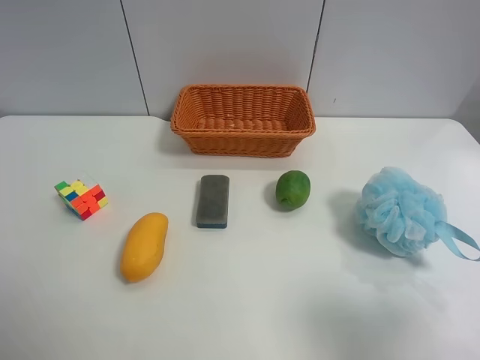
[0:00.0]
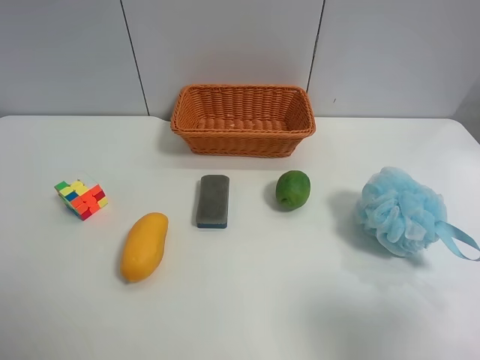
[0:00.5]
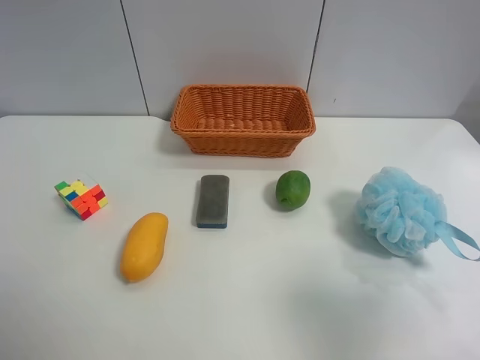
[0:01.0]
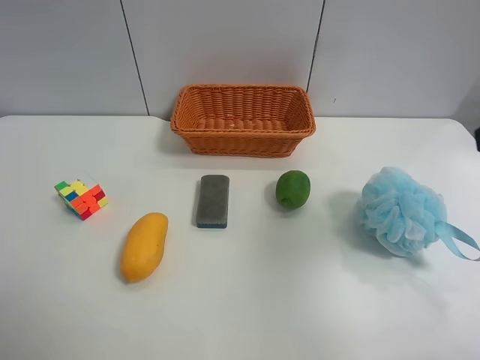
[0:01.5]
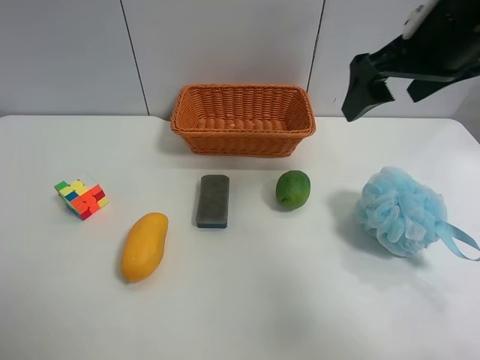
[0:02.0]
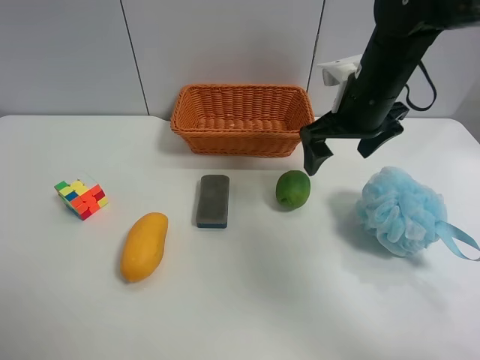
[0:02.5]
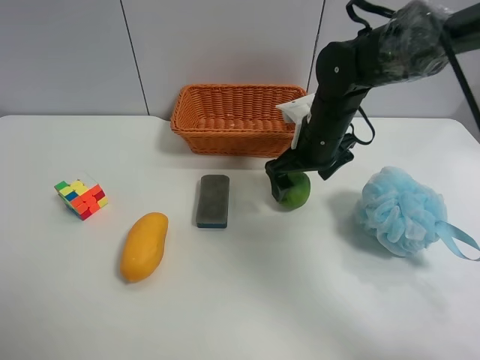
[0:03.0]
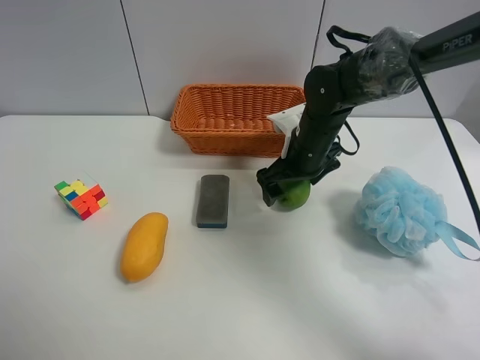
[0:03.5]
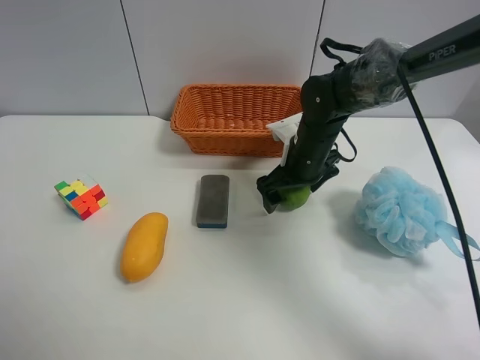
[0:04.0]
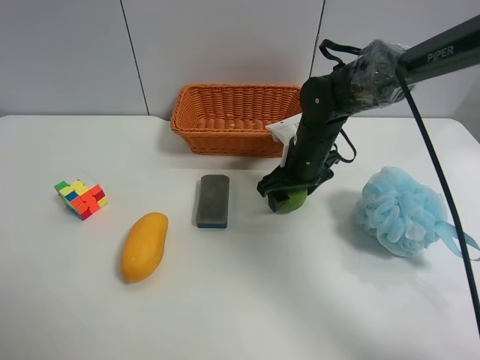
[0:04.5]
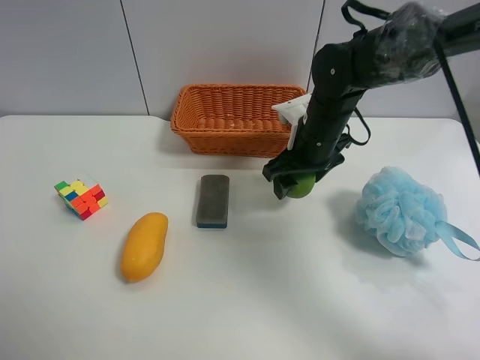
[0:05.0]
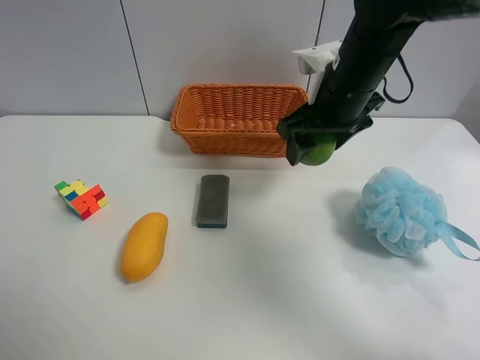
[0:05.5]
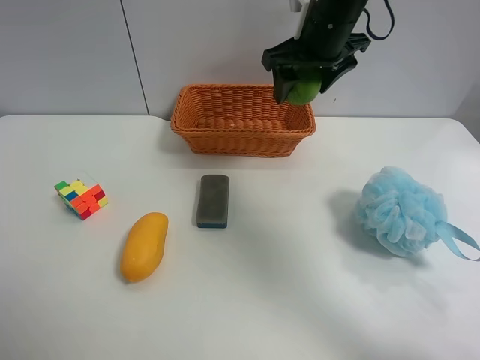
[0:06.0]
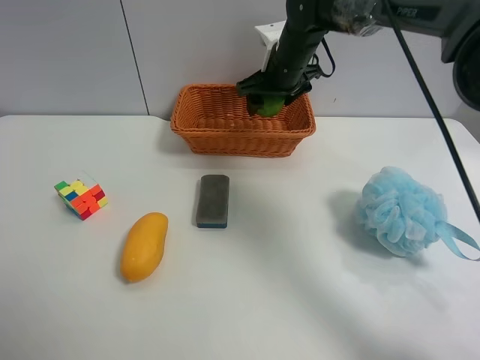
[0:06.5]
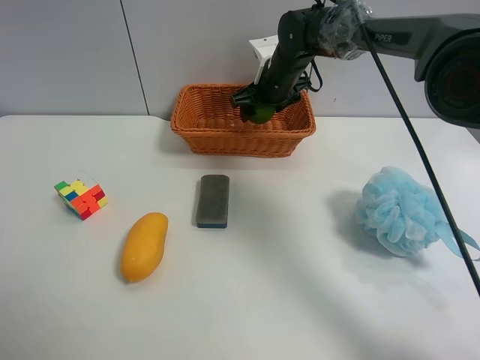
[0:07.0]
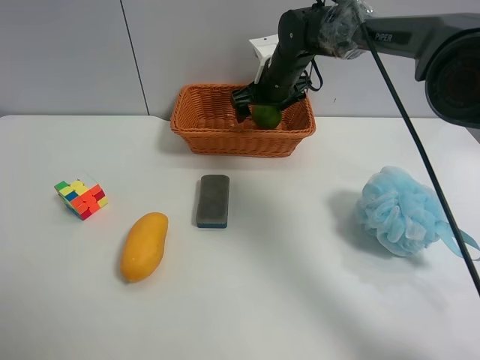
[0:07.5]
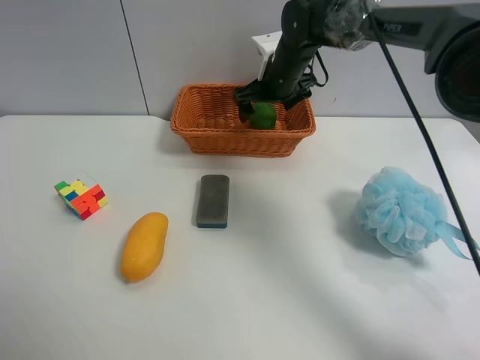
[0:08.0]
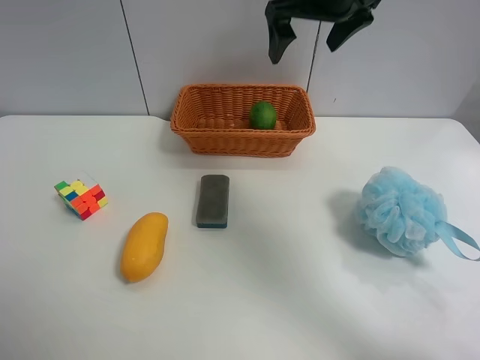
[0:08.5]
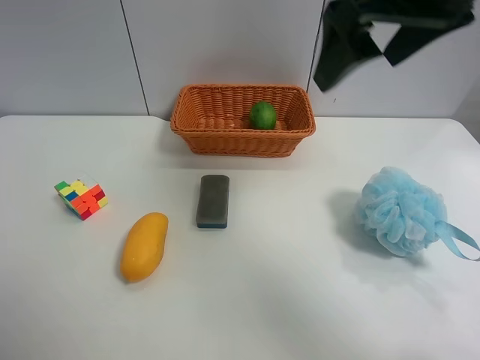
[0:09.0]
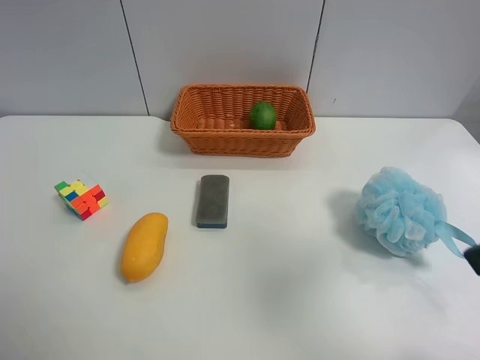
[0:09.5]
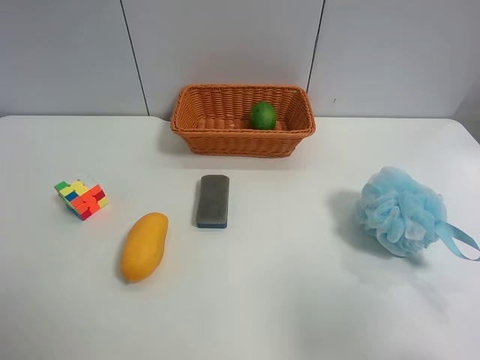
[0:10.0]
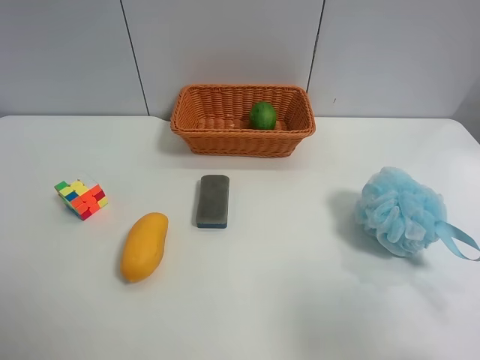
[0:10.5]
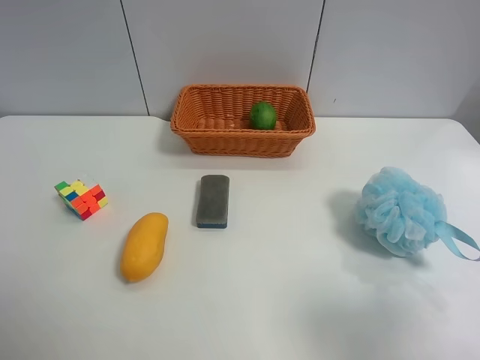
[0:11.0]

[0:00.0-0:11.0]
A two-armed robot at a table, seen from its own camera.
Task of the whole recording: Randomly grab green lemon or mangoes from the table and put them in a basket.
Step, 0:00.0 to 0:04.0: Grasp the Lemon with the right gripper.
Step, 0:04.5 to 0:08.0: Place the Lemon into the basket with the right gripper.
0:00.0 to 0:02.0: The right gripper shifts roughly 30 cm forward.
0:02.0 to 0:03.5: The right gripper moves downward and forward, about 20 cm.
0:03.5 to 0:05.5: The right gripper is displaced upward by roughly 15 cm, and closes its fingers.
0:05.5 to 0:07.5: The right gripper goes some 20 cm forward and downward, and opens up.
0:07.5 to 0:09.0: The right gripper shifts approximately 35 cm backward and upward.
0:09.0 to 0:11.0: The right gripper heads backward, to the right and downward, covering approximately 30 cm.

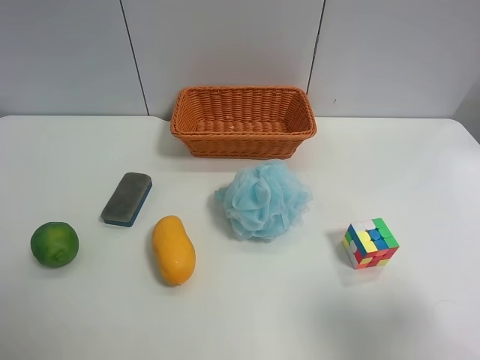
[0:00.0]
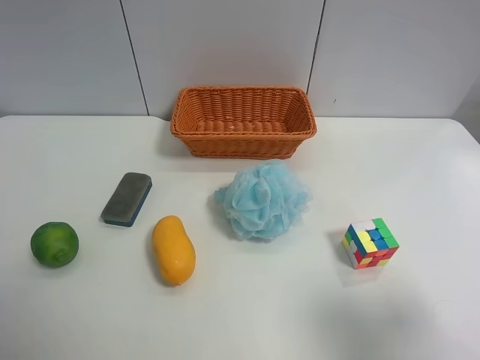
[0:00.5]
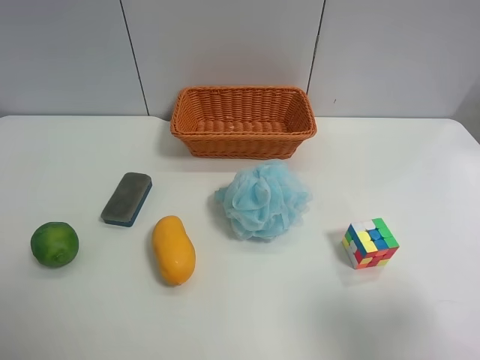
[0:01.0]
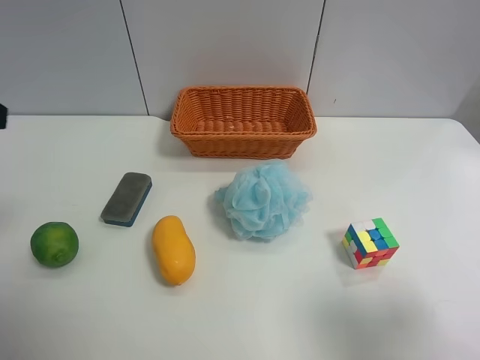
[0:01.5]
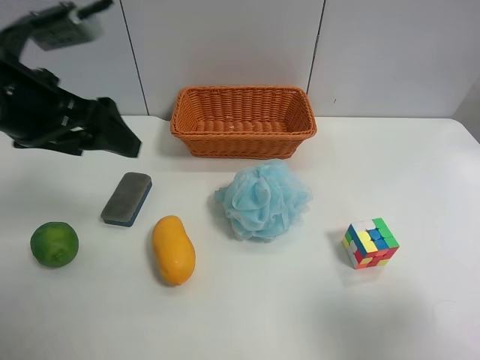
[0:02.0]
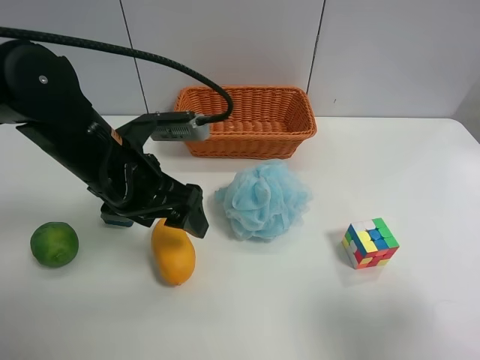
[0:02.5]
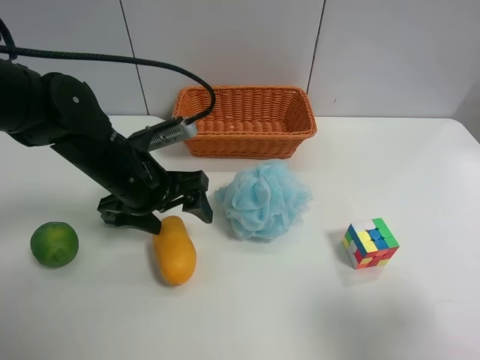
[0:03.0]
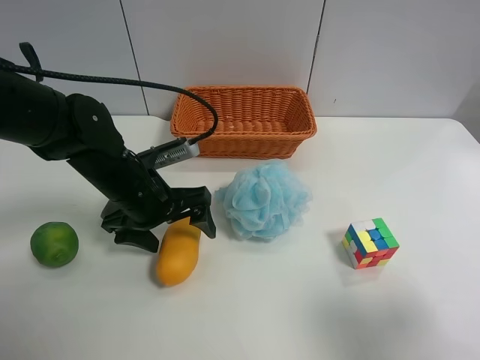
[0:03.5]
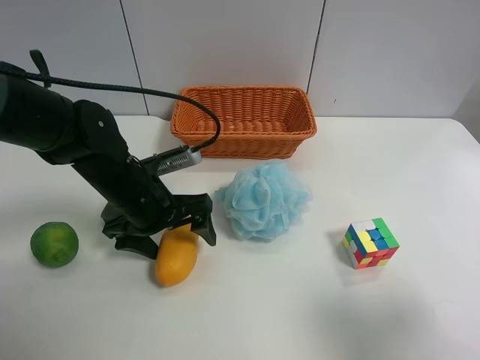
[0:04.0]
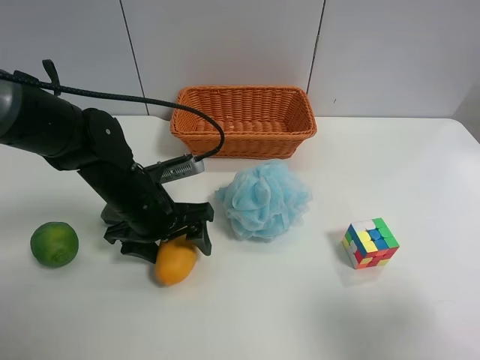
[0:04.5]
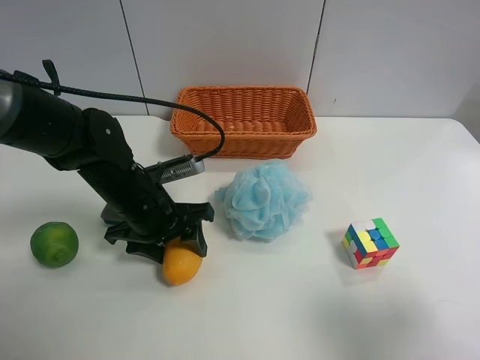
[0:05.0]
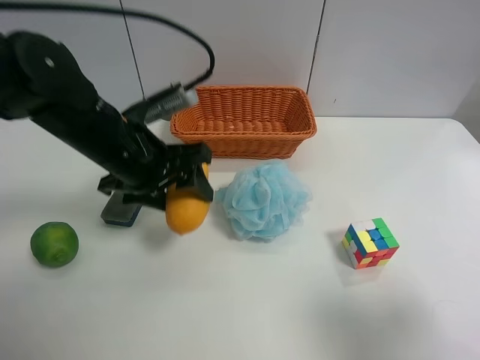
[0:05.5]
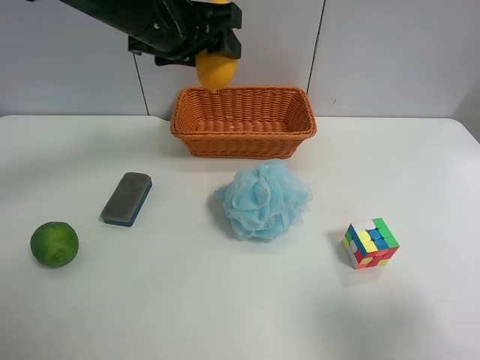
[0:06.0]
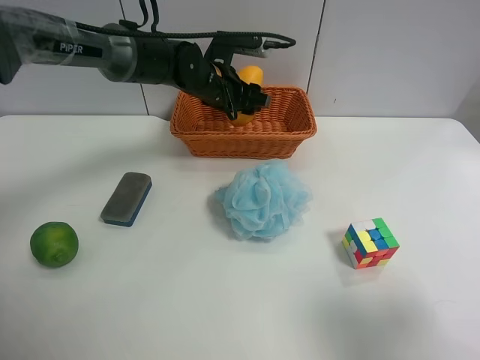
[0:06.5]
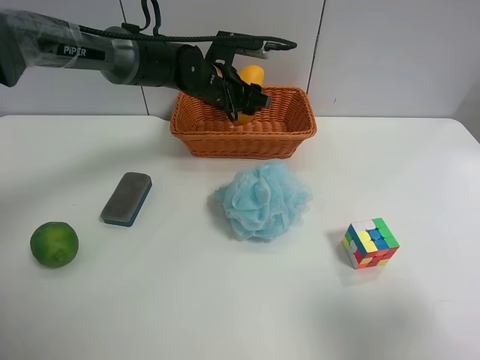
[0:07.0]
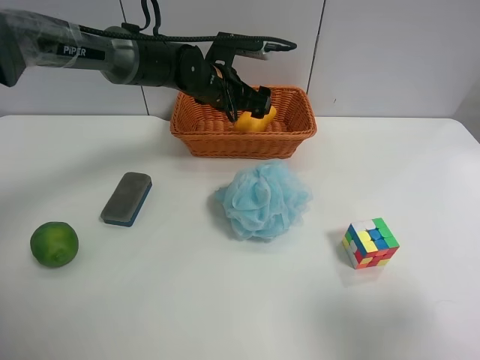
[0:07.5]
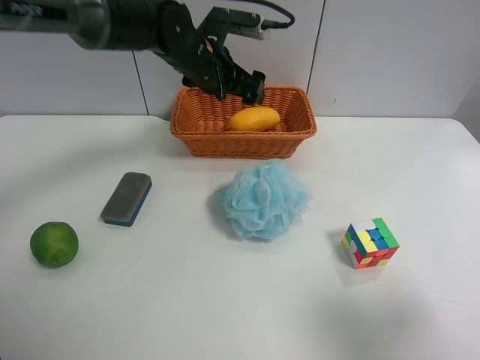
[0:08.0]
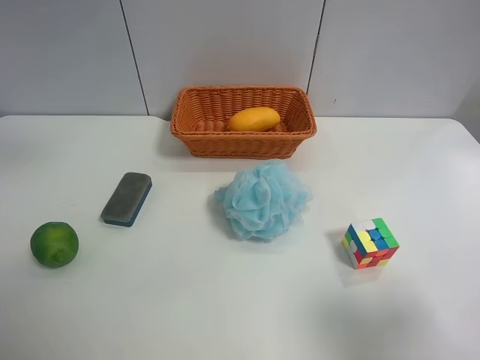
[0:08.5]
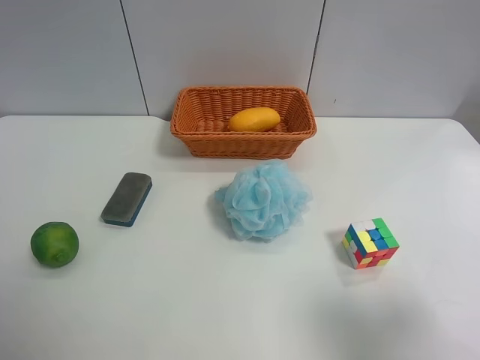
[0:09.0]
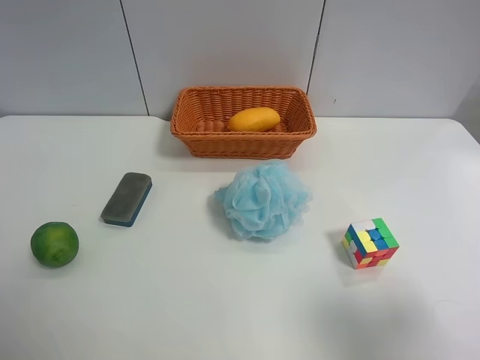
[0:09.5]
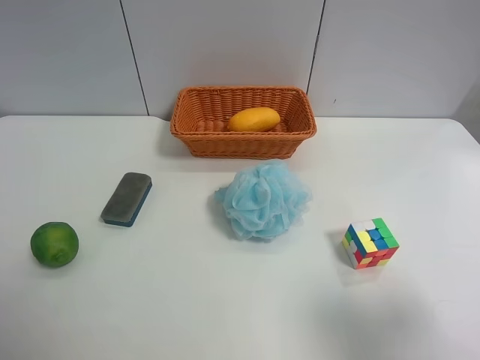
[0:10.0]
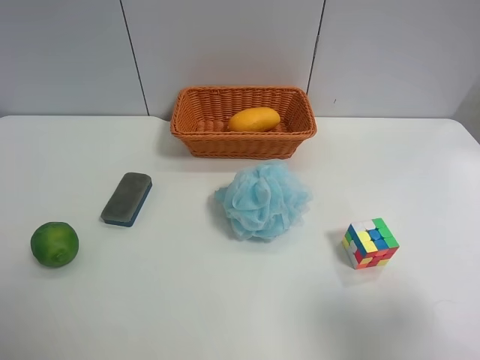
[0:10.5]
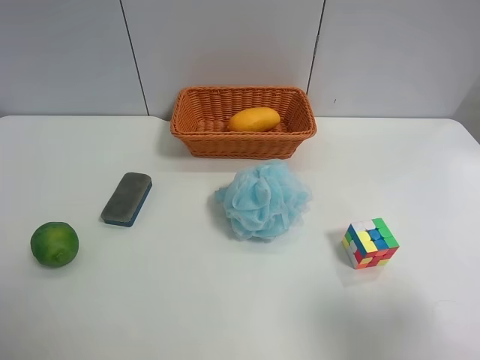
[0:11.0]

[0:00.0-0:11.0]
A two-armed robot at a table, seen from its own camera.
Task of the whole recording: Randomly grab green lemon or mangoes from the table and put them in a basket.
Step, 0:00.0 to 0:04.5: Grasp the mango with the left gripper.
Step, 0:05.0 to 0:08.0: Place the mango into the basket with the left gripper.
0:00.0 to 0:02.0: The left gripper travels forward and to the right by some 25 cm.
0:02.0 to 0:03.5: The left gripper is displaced downward and to the right by some 15 cm.
0:03.5 to 0:05.5: The left gripper heads upward, covering some 10 cm, and closes its fingers.
0:05.5 to 0:07.5: The left gripper travels forward and to the right by some 20 cm, and opens up.
0:07.5 to 0:09.0: The left gripper is displaced backward, to the left and upward by approximately 60 cm.

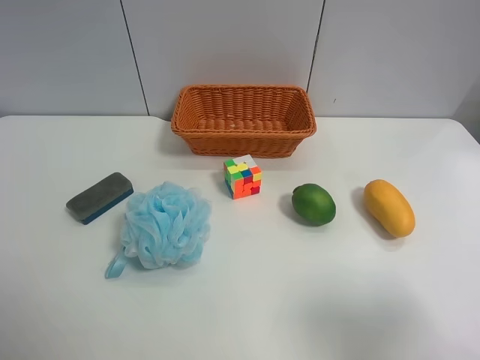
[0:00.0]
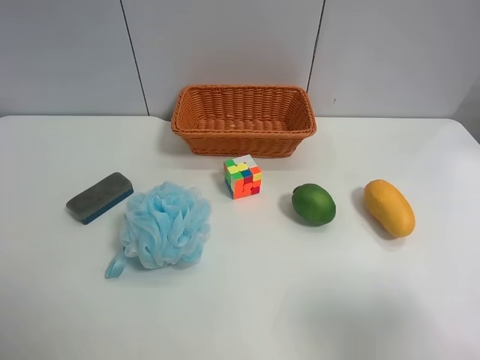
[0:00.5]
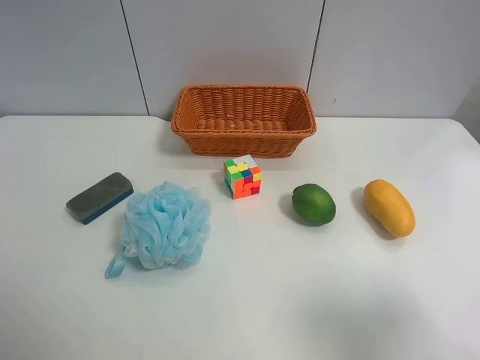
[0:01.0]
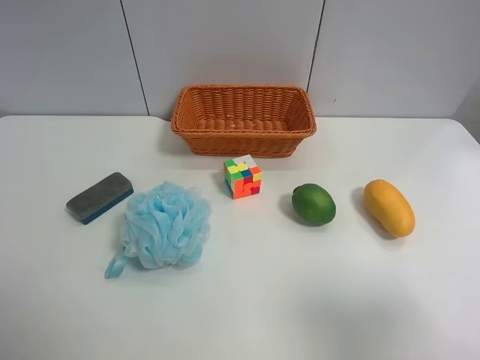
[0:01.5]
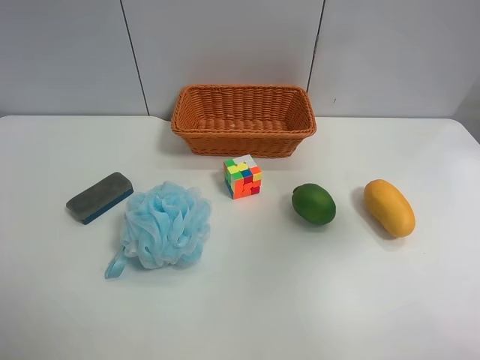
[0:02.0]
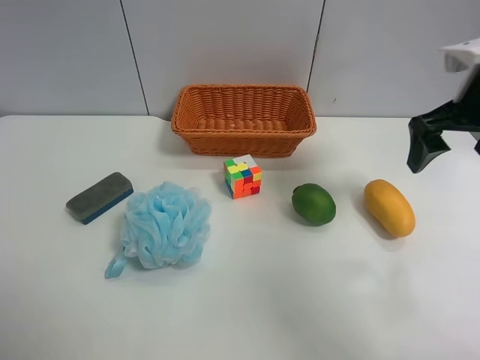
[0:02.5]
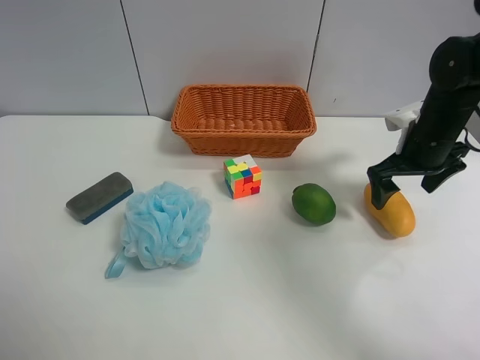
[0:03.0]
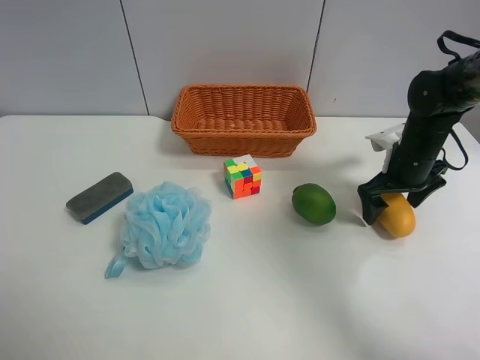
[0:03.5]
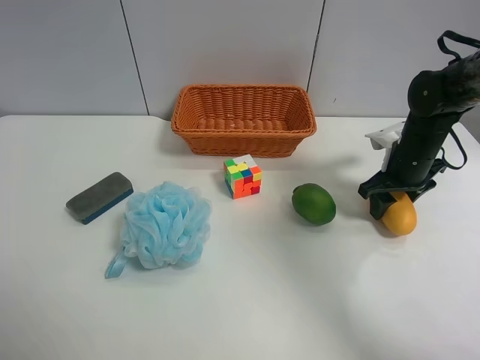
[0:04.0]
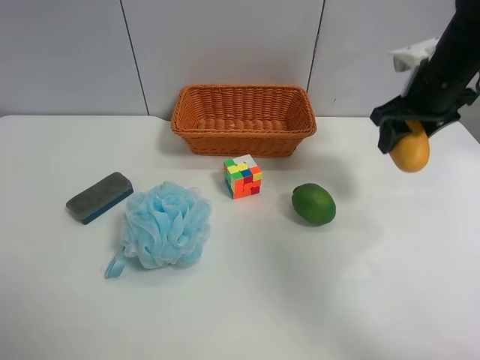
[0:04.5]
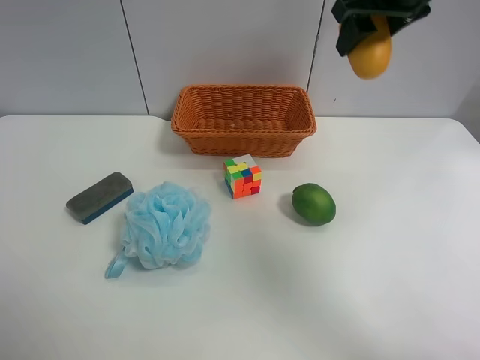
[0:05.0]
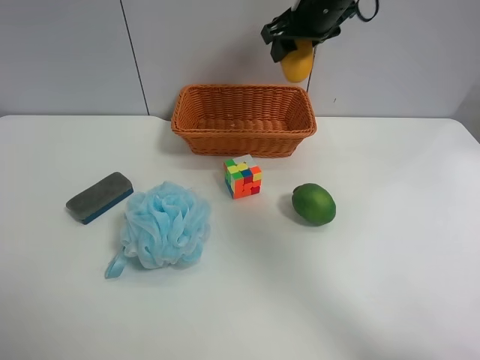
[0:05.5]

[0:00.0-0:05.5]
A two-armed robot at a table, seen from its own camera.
Task of the whole recording: Randomly grab green lemon or mangoes from the table and put them in a basket.
Step, 0:00.0 to 0:03.5: Grasp the mango with the right gripper.
0:00.0 to 0:02.0: The right gripper travels forward and upward by about 20 cm.
0:02.0 to 0:03.5: The right gripper heads downward and forward, covering about 30 cm.
0:03.5 to 0:05.5: The right gripper shifts approximately 25 cm upward, to the left and forward, and closes.
